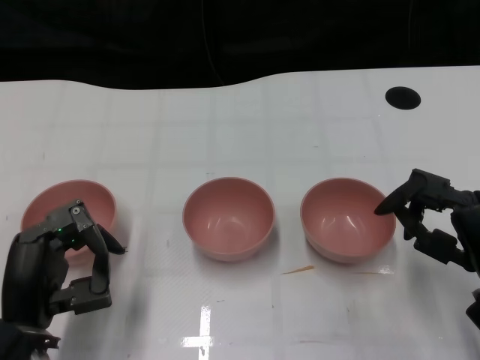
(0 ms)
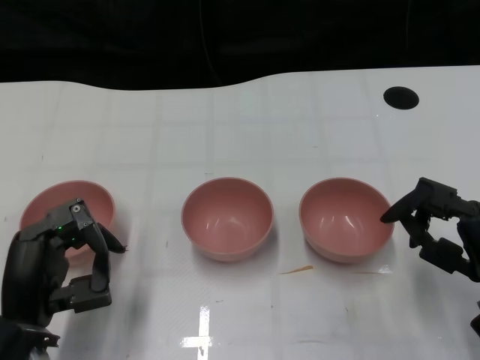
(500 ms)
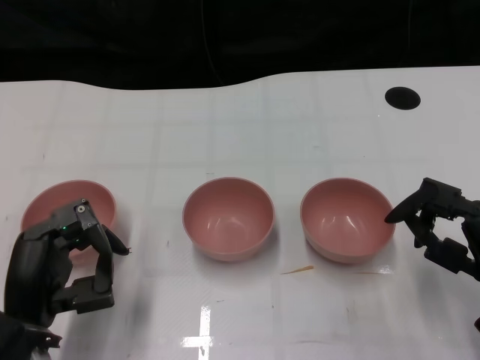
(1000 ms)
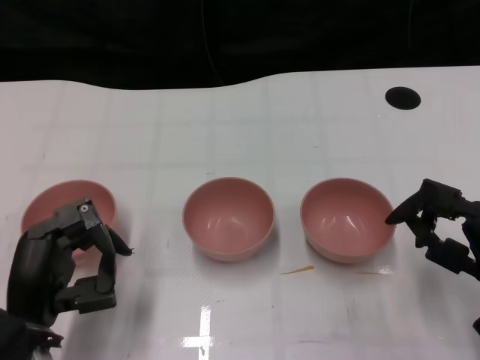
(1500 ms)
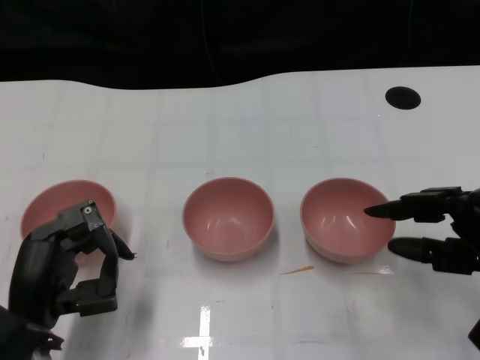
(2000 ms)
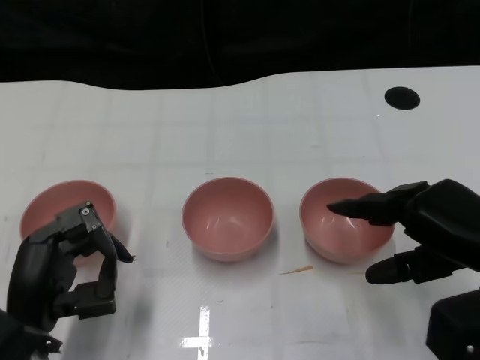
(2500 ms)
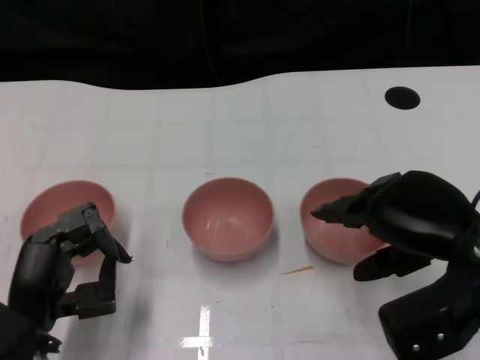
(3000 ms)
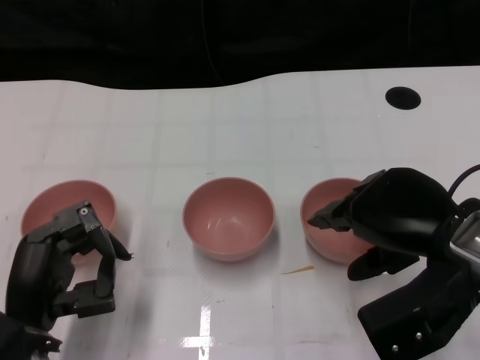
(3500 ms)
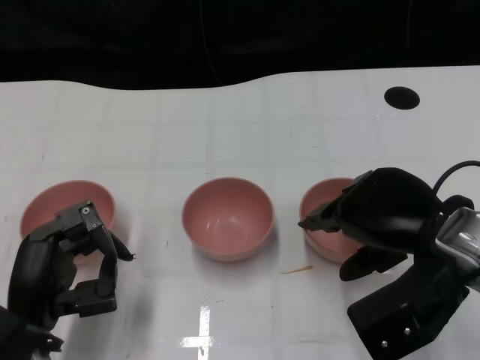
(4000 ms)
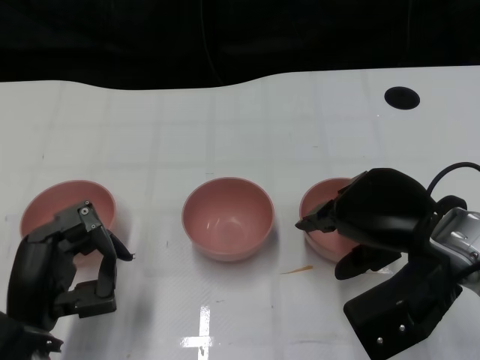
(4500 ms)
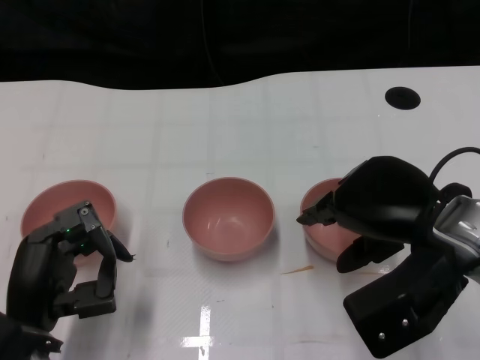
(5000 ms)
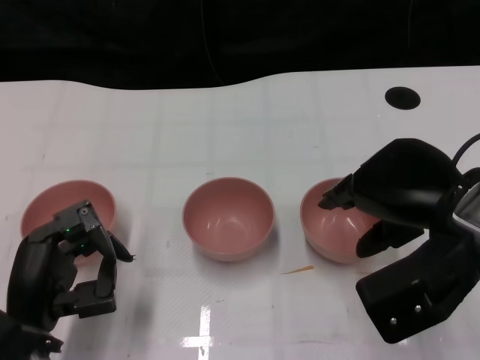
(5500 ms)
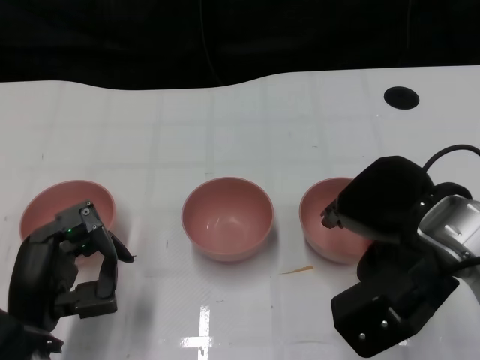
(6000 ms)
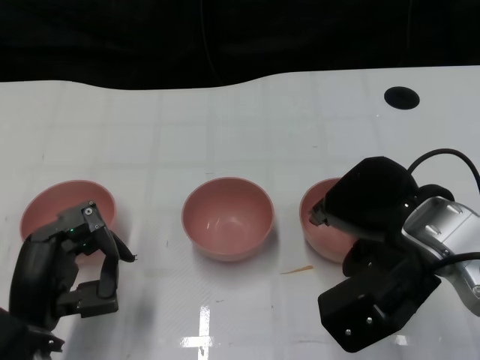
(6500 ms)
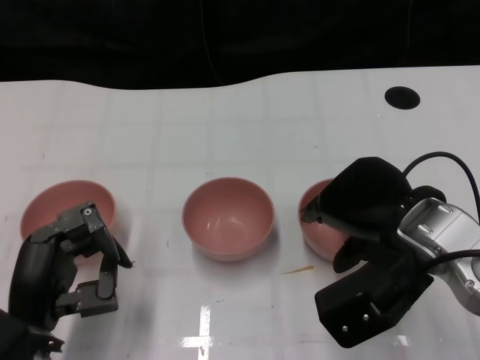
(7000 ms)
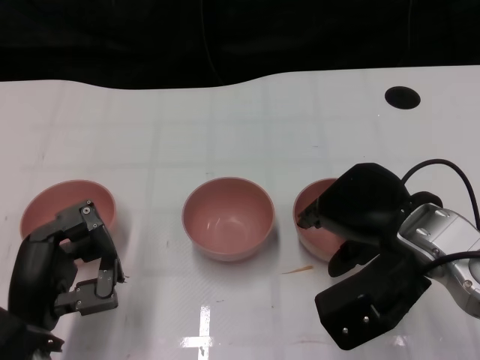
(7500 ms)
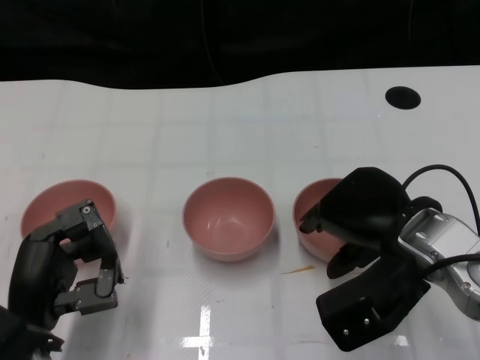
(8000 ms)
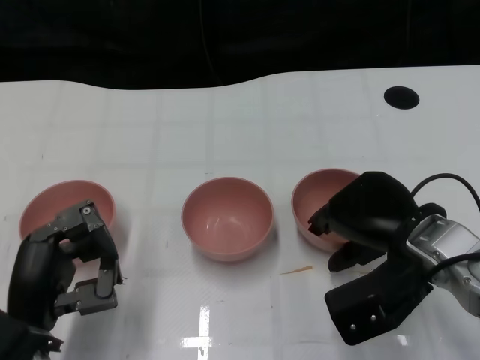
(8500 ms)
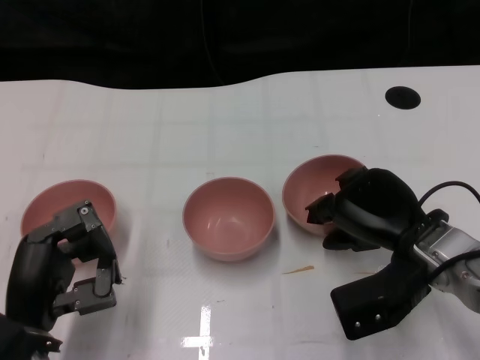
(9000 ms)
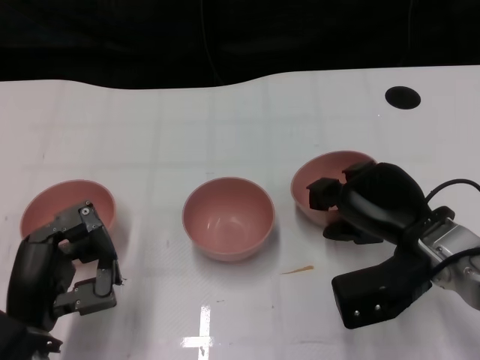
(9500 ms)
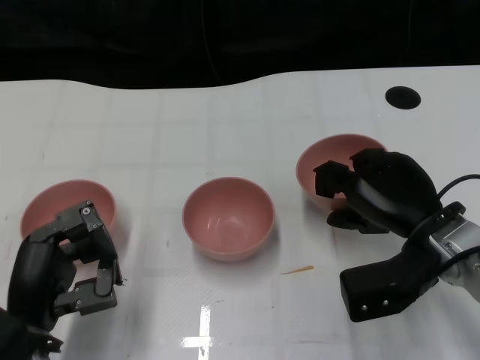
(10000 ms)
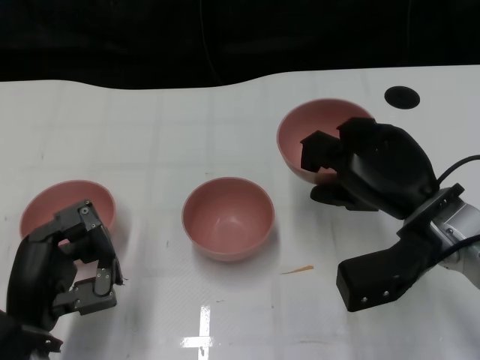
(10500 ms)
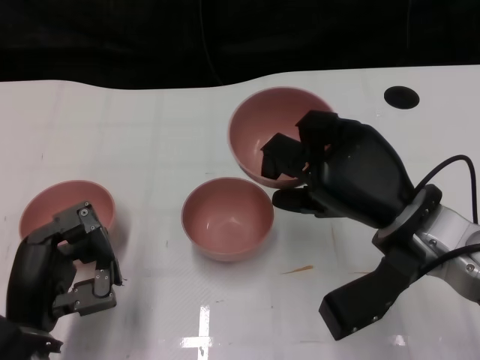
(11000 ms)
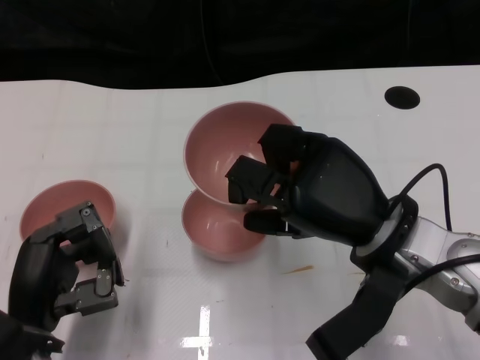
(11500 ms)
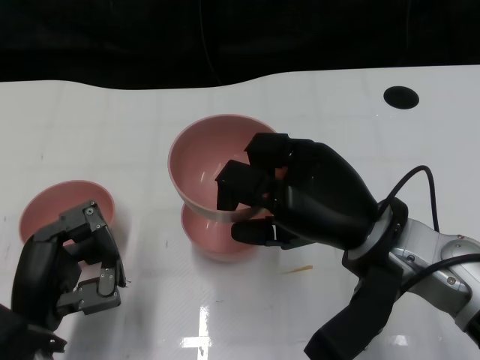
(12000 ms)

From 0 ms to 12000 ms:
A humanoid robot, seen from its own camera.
Task of the whole recording: Pick up the bowl on one side of the table and place it on top of the middle bowl, then pick up the bowl on the other side of the table and place it on top of the middle bowls.
Step, from 2000 ms to 9500 ms: Grasp the bowl on the right with the right gripper.
From 2000 ms to 4000 ms: The right hand moves to the left and upward, roughly 10 cm.
From 4000 ms to 8000 ms: The hands move only a little.
From 8000 ms to 10000 ms: The right hand shifts by some 5 cm.
From 10000 ms to 12000 ms: The right hand travels to the left and upward by roughly 10 cm.

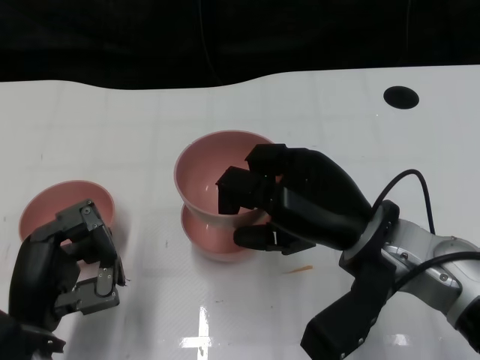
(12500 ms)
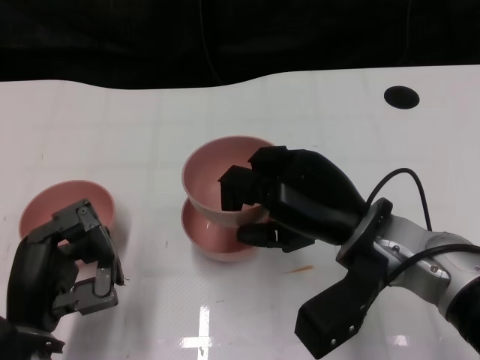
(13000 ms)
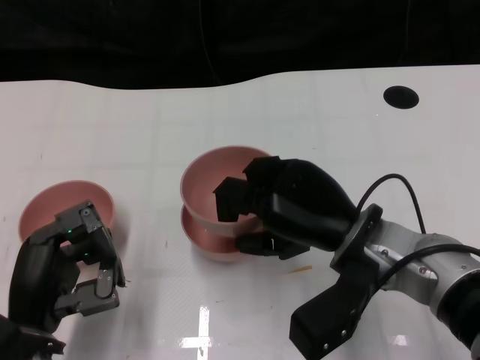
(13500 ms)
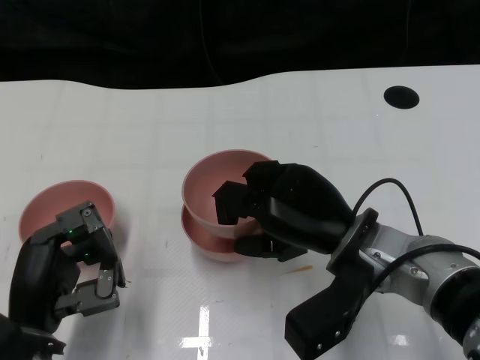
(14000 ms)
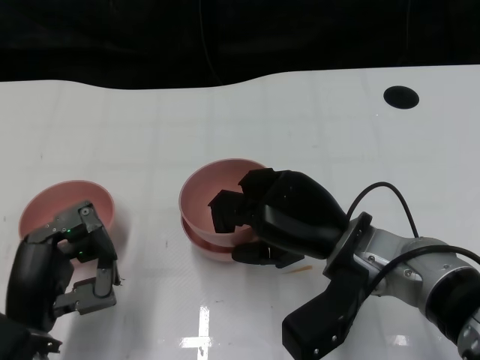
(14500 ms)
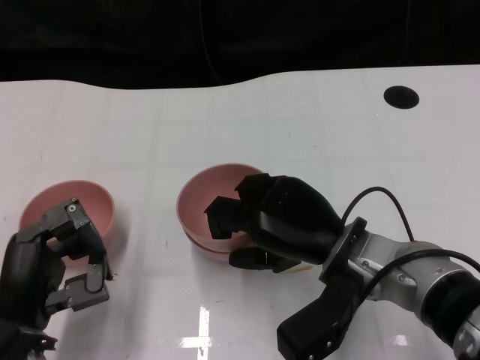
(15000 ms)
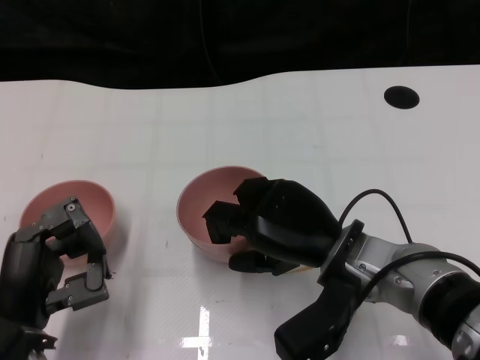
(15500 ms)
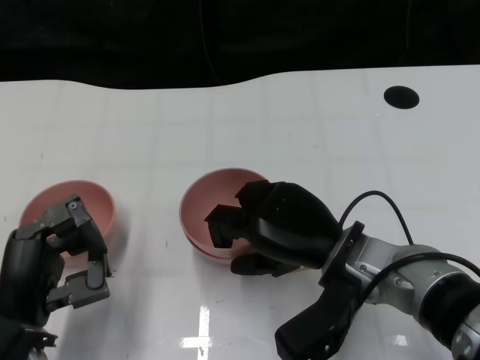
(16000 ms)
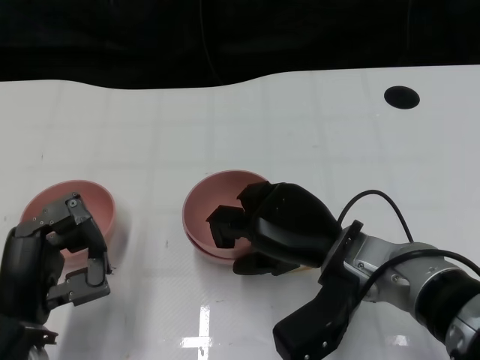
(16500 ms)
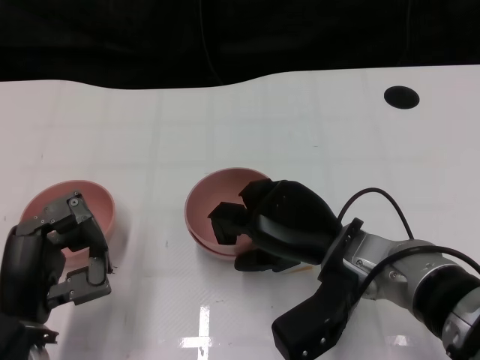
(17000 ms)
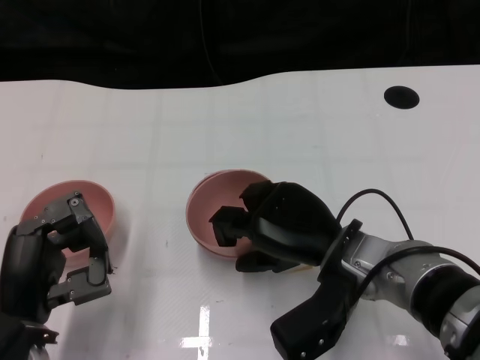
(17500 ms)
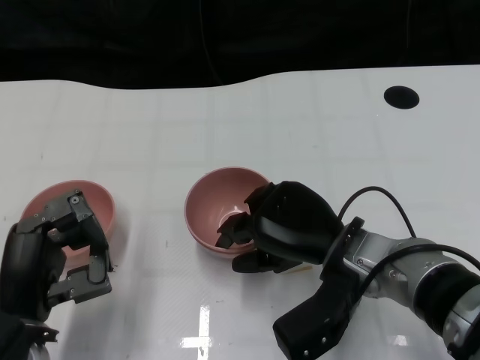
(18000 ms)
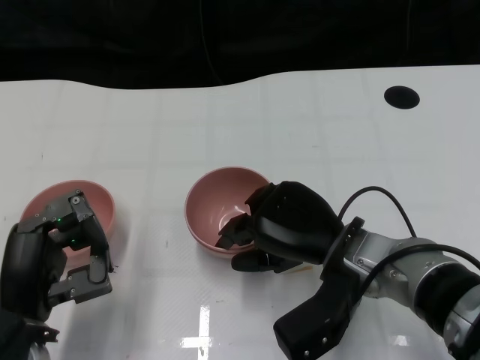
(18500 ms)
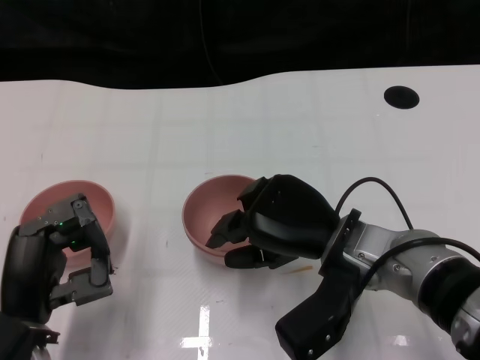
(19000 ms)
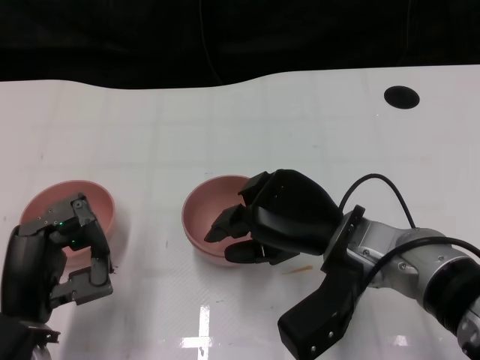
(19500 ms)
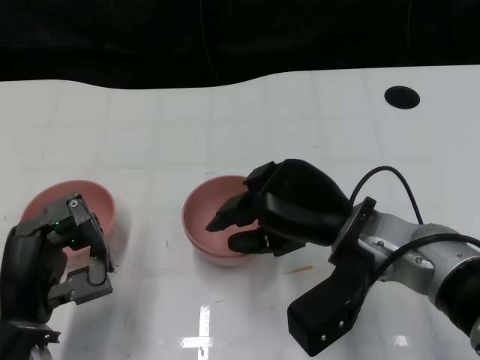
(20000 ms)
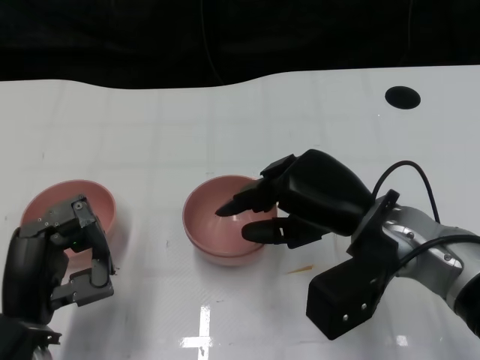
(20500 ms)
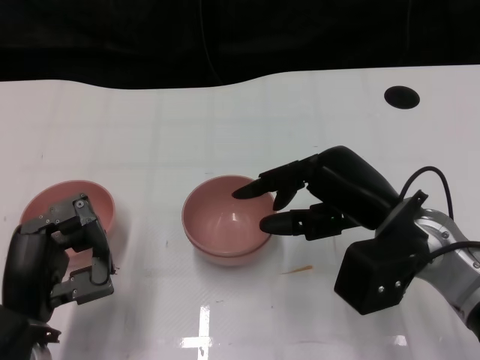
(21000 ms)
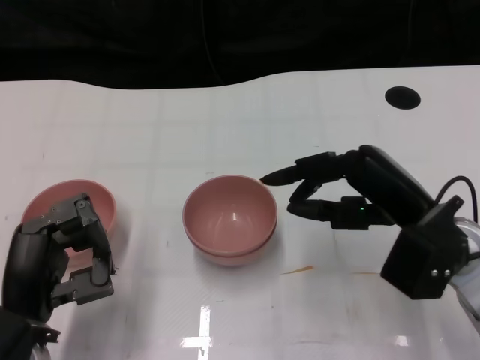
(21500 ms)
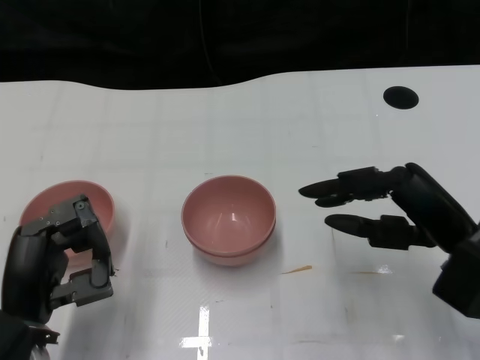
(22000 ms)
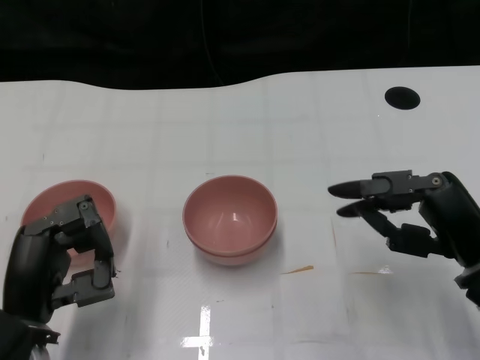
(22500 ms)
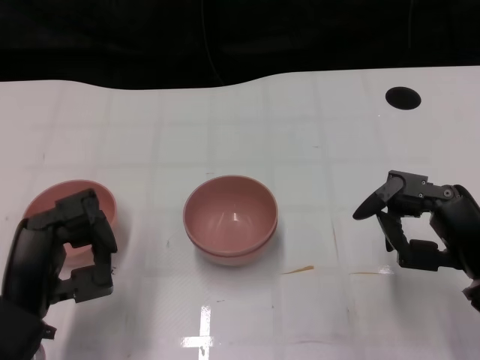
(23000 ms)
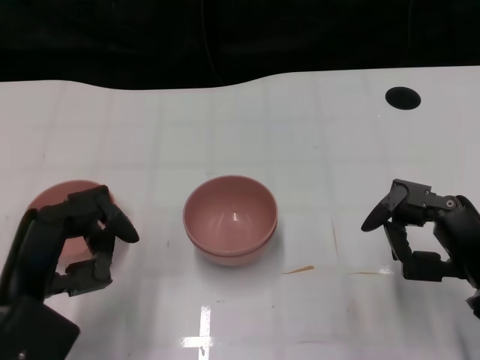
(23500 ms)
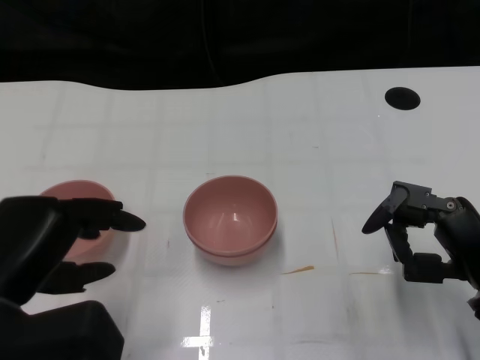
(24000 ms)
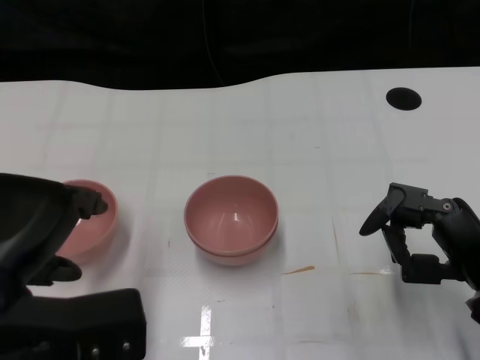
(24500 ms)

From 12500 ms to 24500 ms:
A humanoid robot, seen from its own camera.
Task of the whole recording: Pick up the bowl on one side of the table and place it on top of the middle bowl, then pick up the bowl on the other side of the table and place it on top of the middle bowls.
Step, from 12500 ms to 20500 ms: Place the bowl on the right onto the bowl in the middle with right gripper.
From 12500 ms to 16500 ms: The hands make only small movements.
From 16500 ms to 18500 ms: Both hands stay put.
From 18500 ms to 20500 ms: The right hand moves some 5 cm.
From 20500 ms to 22500 ms: The right hand is displaced to the right by about 10 cm.
From 22500 ms to 24500 ms: The left hand moves upward, some 10 cm.

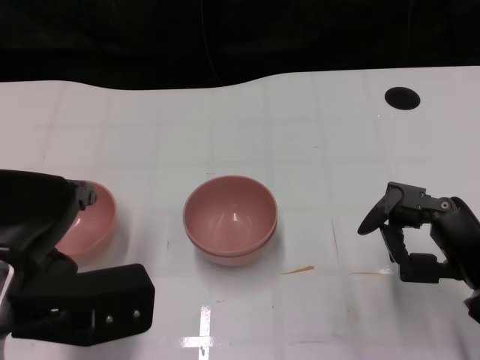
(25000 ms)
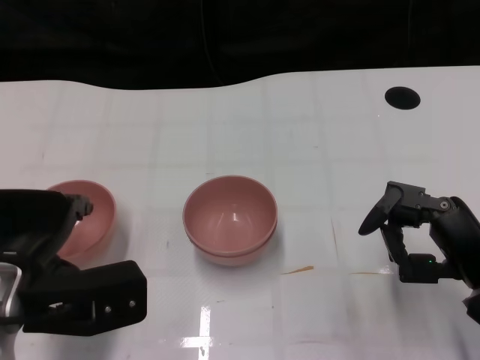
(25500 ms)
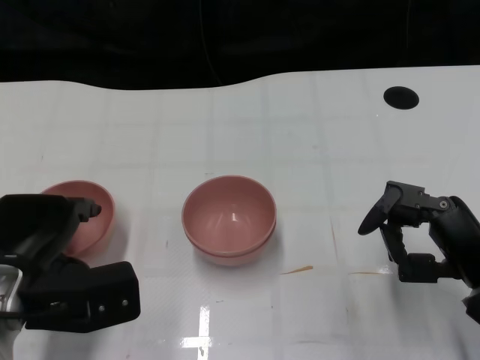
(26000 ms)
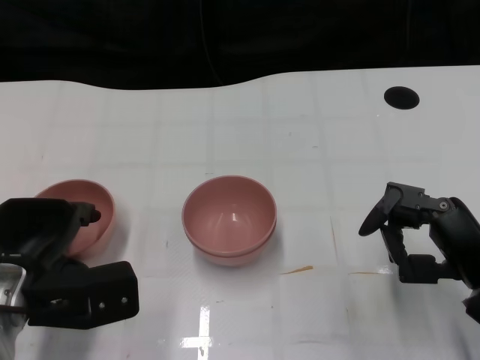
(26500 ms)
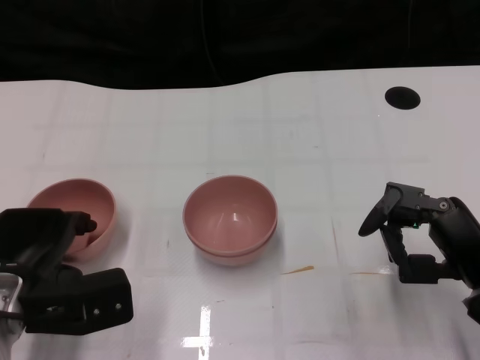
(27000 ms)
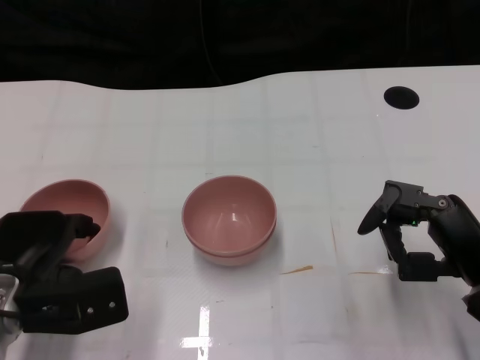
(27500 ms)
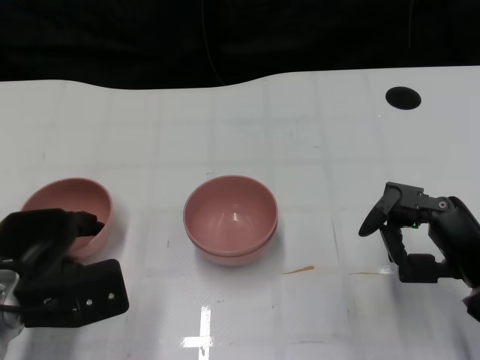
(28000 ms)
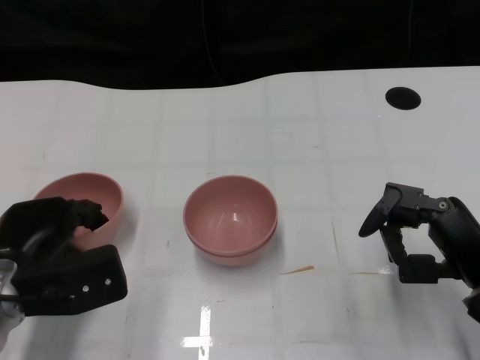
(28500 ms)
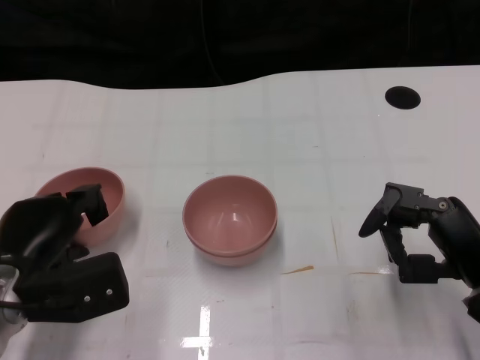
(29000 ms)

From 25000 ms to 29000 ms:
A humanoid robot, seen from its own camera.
Task of the whole recording: Pick up the bowl on one side of the table and place it on top of the middle bowl, then pick up the bowl on the other side of the table and place it on top of the middle bowls.
From 25000 ms to 27000 ms: The left hand goes approximately 10 cm downward and forward.
From 27000 ms to 29000 ms: The hands move only a little.
